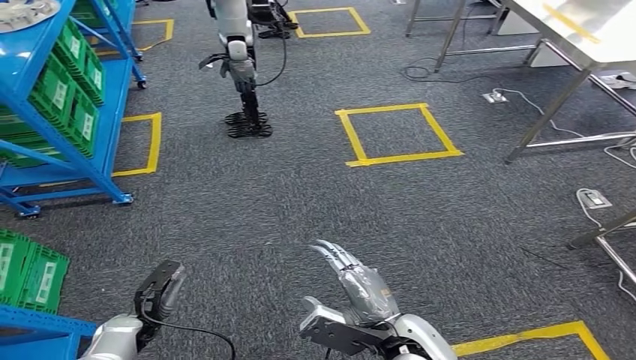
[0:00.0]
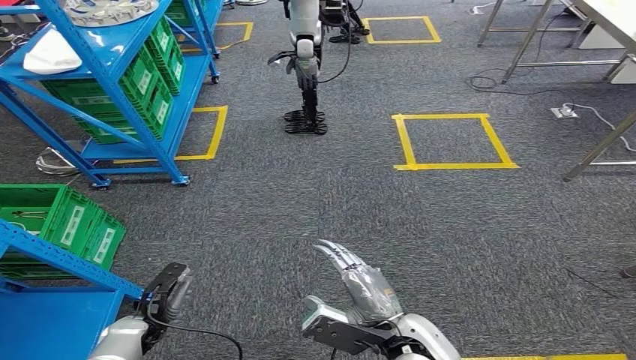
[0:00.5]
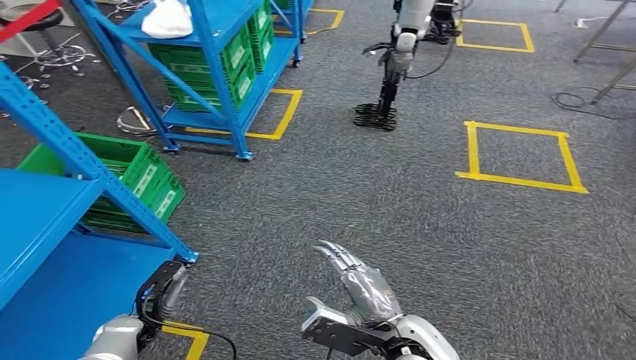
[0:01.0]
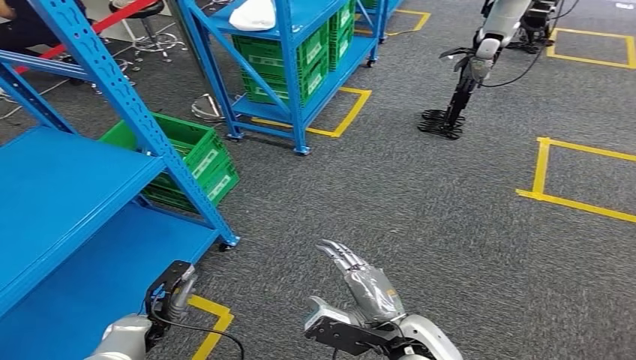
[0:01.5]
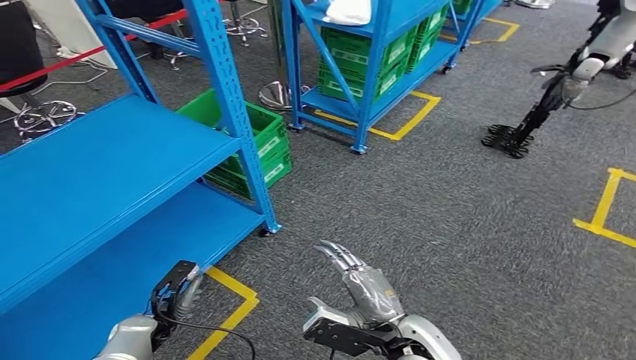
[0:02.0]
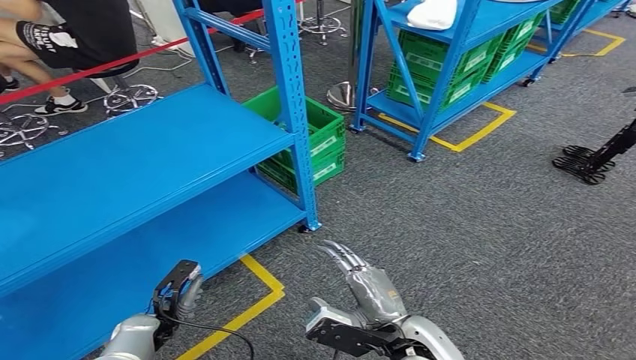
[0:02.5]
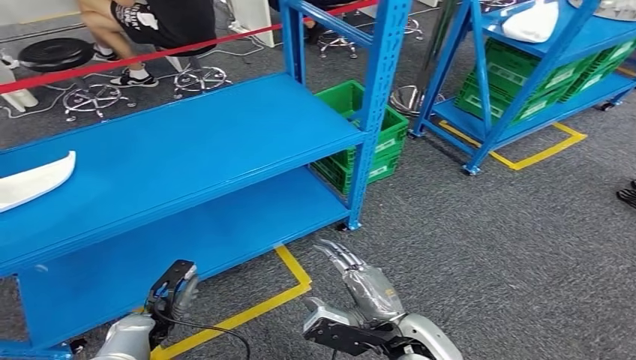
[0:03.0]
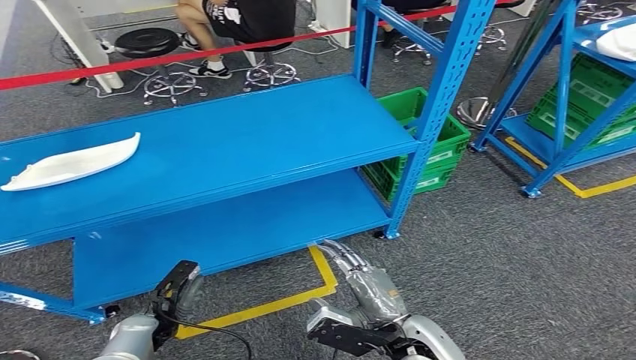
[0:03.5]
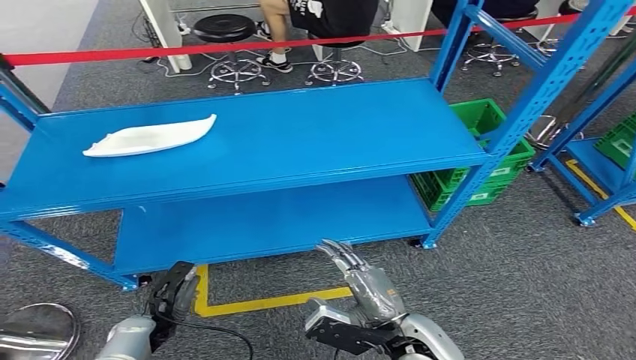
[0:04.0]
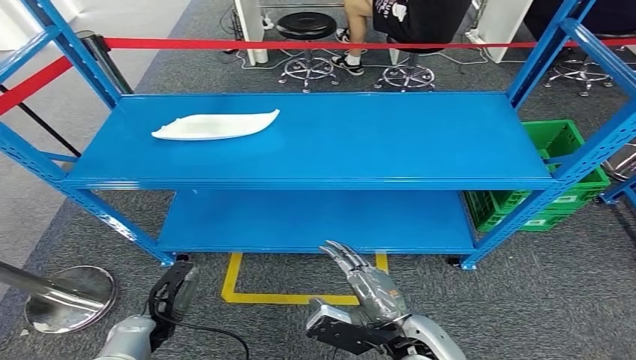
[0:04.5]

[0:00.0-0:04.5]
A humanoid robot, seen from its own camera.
Step, 0:00.0 to 0:04.5: Move to the initial position of the workbench.
